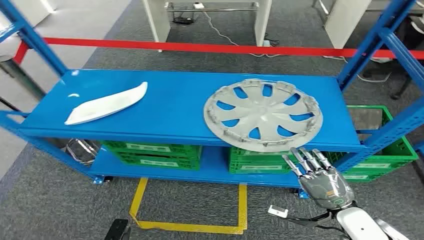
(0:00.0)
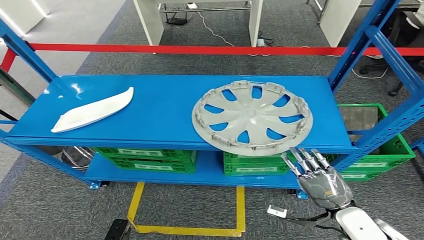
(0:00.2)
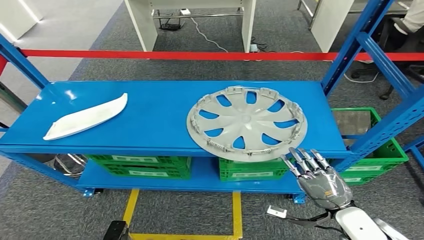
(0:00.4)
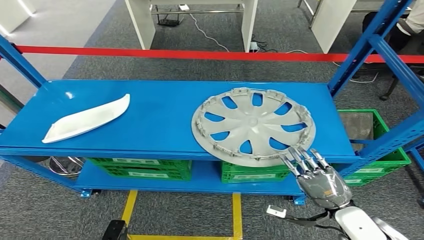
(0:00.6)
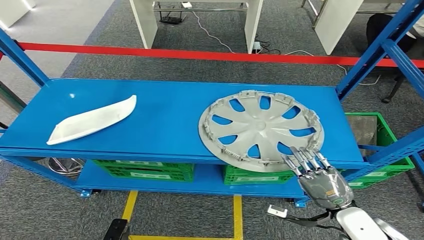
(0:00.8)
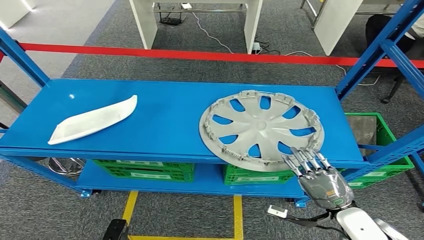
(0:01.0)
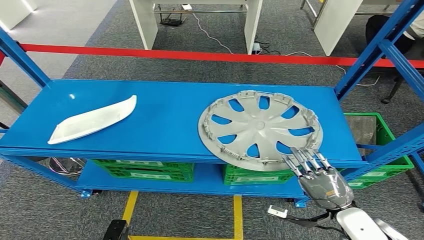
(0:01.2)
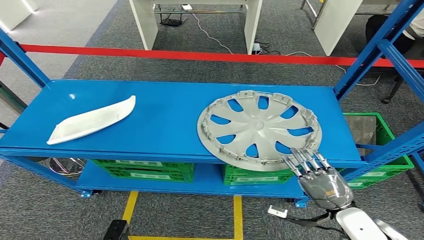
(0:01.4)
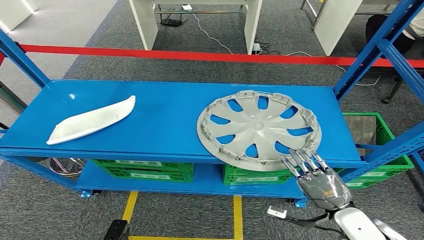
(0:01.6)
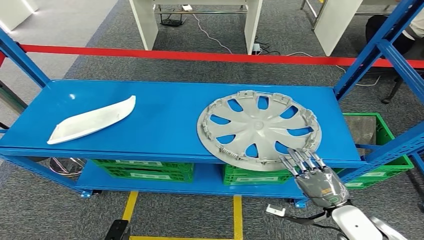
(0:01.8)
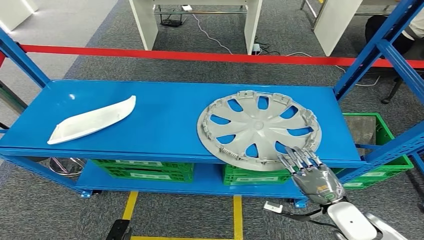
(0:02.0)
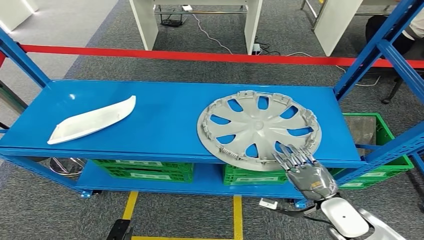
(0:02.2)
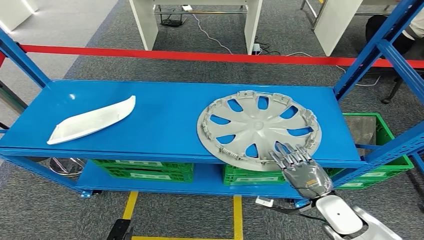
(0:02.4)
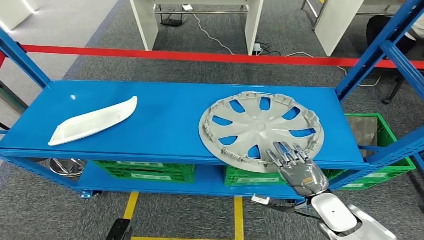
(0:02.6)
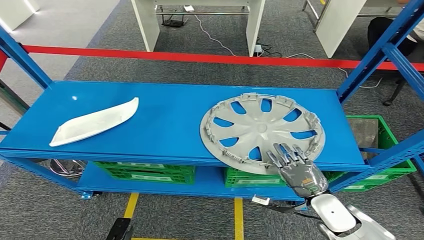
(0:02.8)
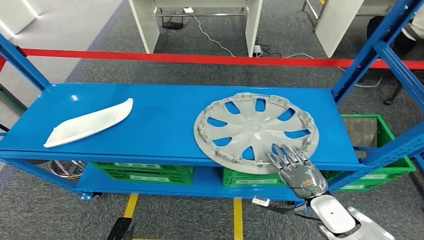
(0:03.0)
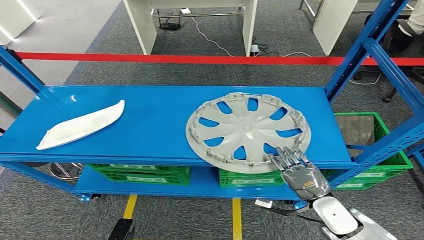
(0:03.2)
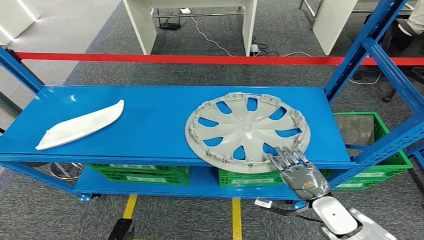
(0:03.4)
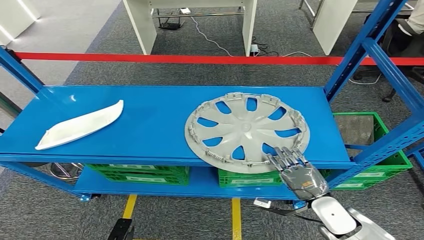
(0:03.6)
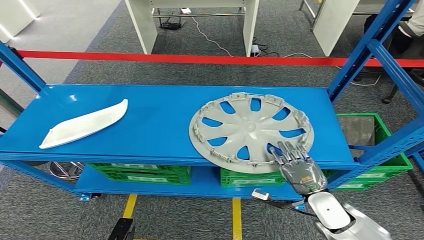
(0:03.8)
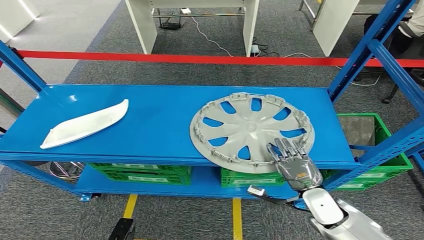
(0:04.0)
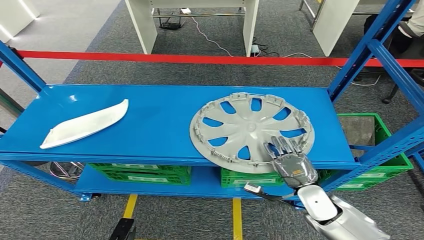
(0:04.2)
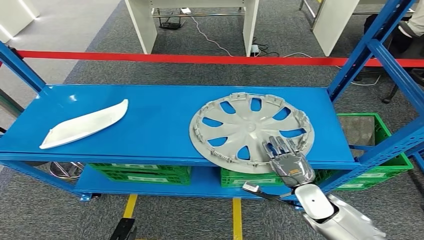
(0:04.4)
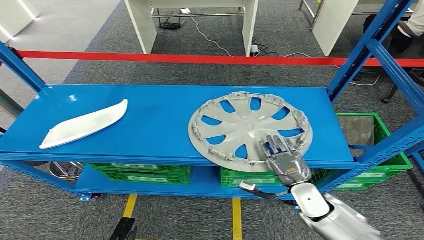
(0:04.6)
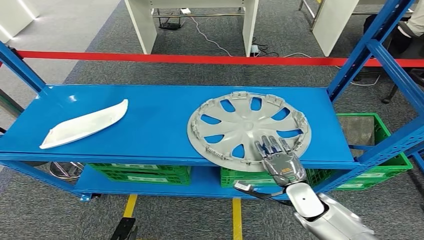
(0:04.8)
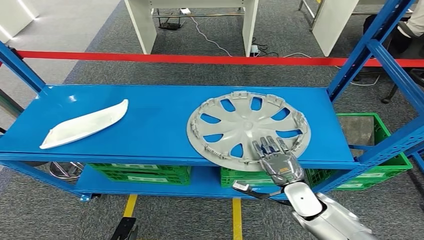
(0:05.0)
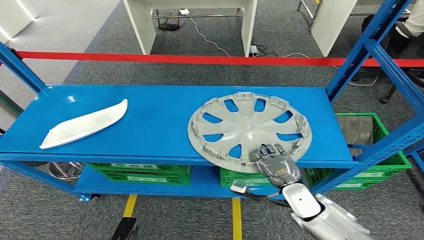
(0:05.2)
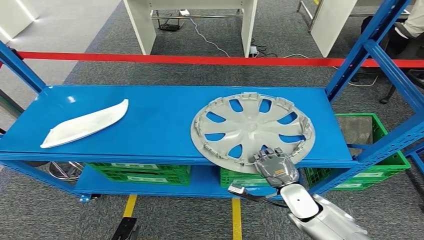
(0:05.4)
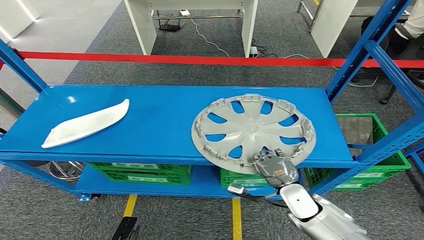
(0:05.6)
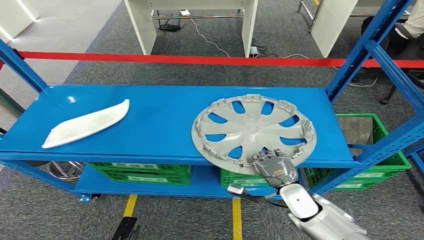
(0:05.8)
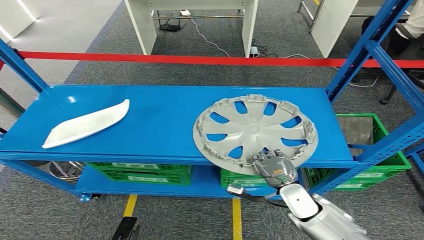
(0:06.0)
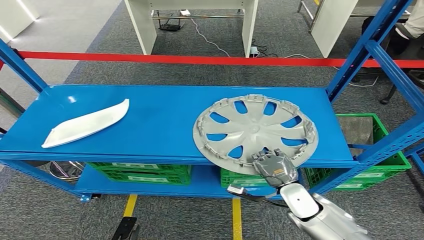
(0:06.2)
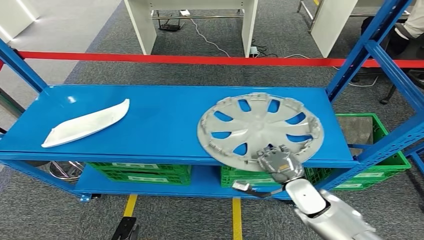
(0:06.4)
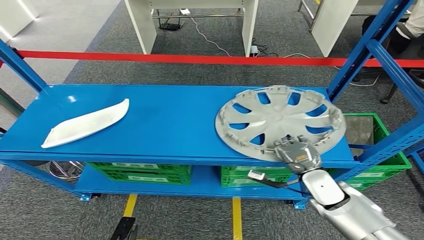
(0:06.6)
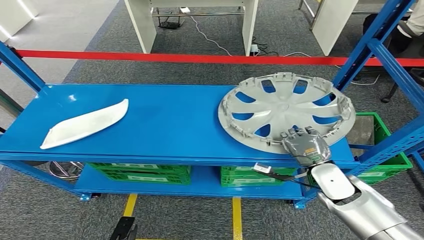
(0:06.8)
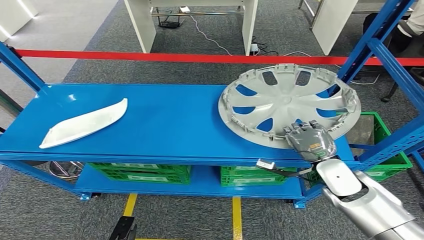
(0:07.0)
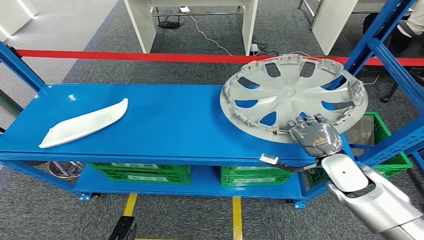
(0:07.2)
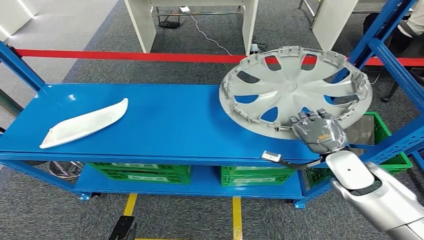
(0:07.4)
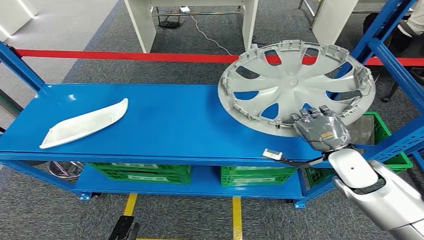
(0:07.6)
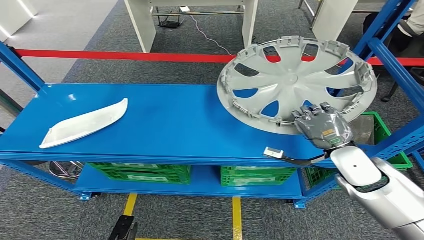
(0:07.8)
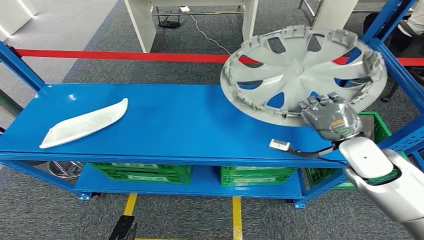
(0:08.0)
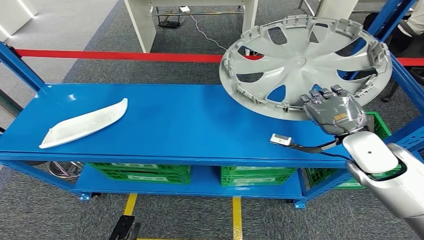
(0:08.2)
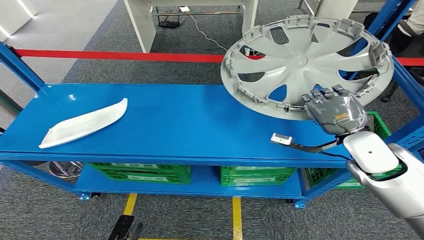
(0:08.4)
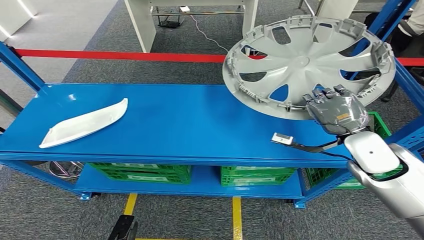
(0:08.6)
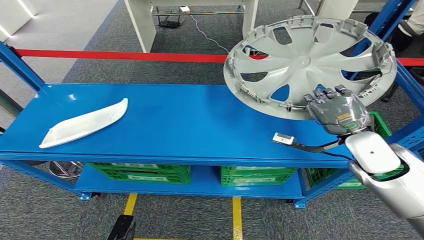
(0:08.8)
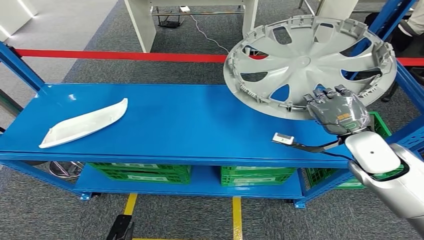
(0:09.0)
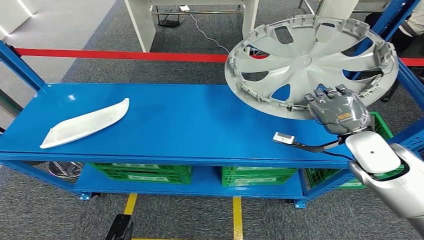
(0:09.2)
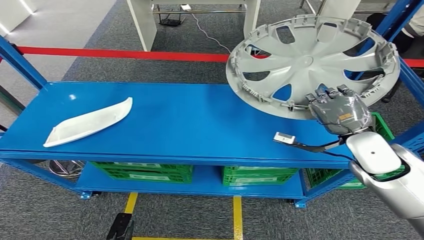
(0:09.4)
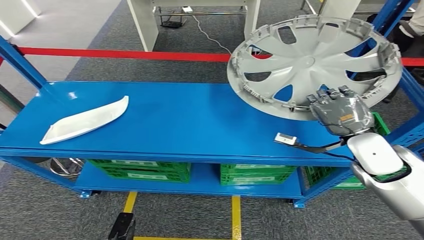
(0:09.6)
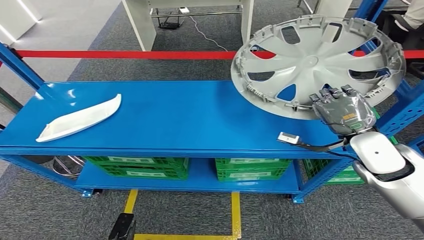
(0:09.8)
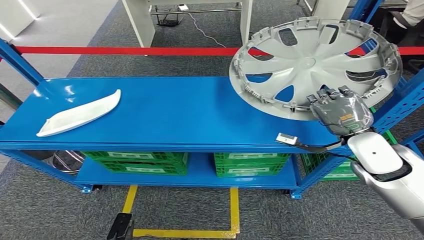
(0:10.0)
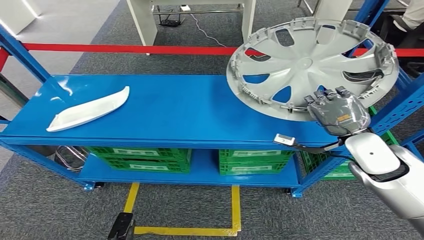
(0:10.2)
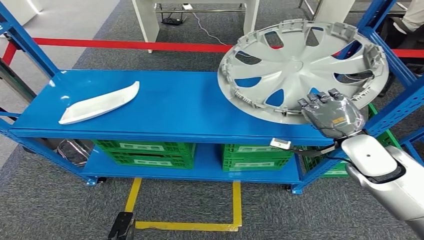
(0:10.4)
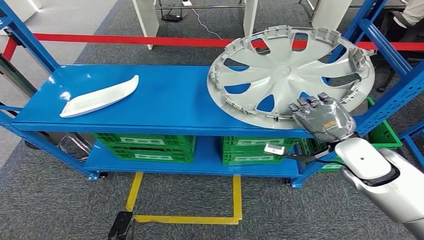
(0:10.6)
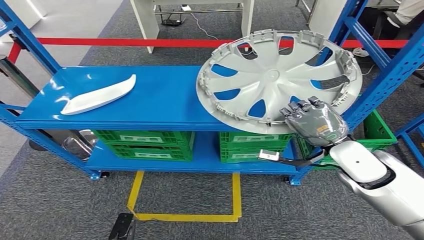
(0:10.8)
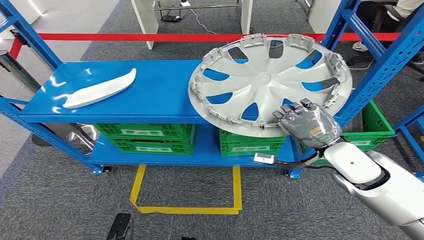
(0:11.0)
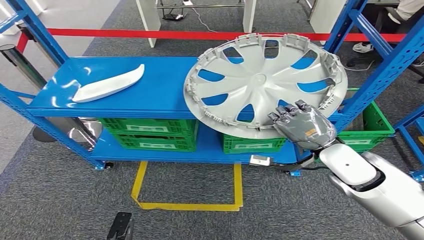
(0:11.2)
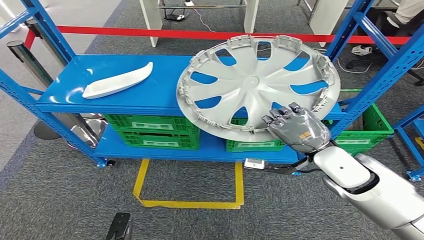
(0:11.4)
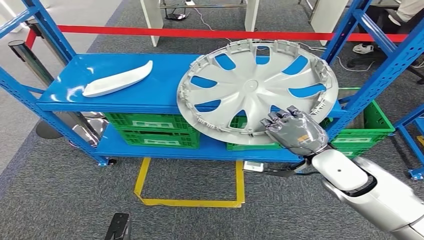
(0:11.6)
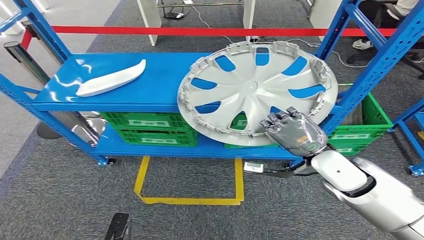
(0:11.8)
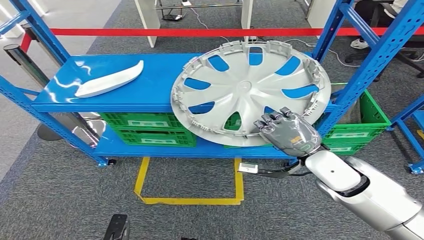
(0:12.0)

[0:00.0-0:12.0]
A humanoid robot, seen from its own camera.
Step, 0:00.0 to 0:11.8: Pick up the small component from the shelf.
0:01.6 to 0:03.0: The right hand changes place by approximately 5 cm.
0:03.0 to 0:04.4: The hands stay close to where they were, moving slightly.
0:04.4 to 0:06.0: The hands stay close to where they were, moving slightly.
0:07.6 to 0:09.0: The right hand moves upward, roughly 5 cm.

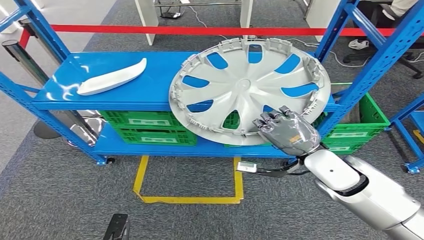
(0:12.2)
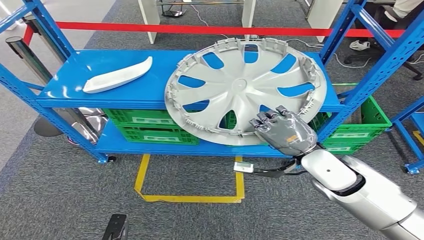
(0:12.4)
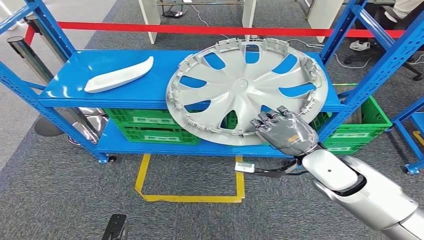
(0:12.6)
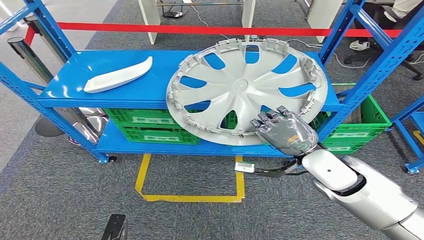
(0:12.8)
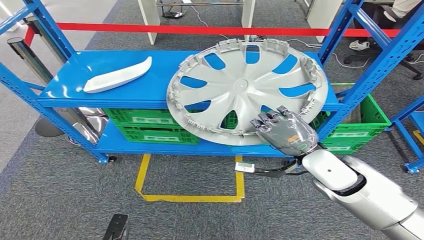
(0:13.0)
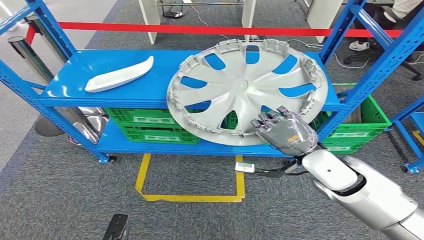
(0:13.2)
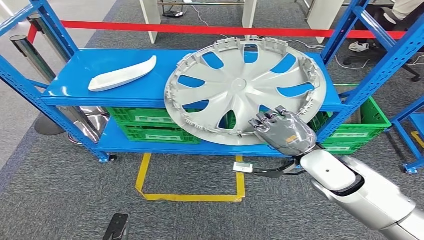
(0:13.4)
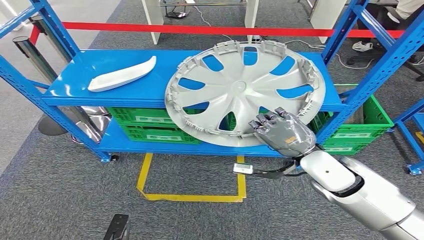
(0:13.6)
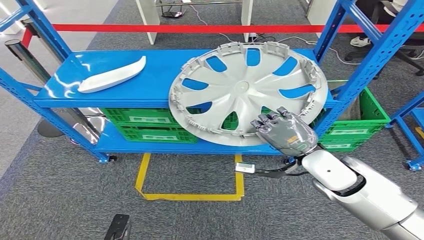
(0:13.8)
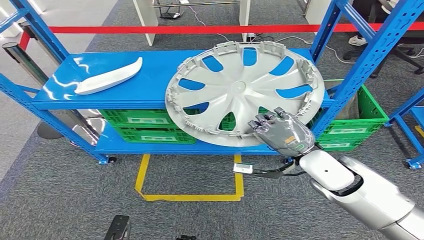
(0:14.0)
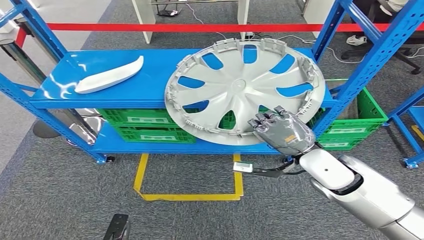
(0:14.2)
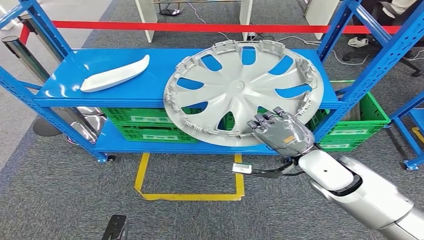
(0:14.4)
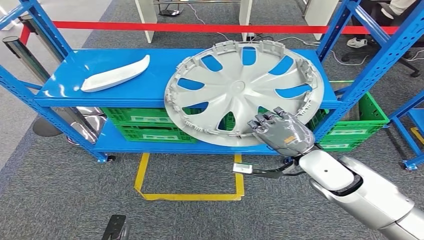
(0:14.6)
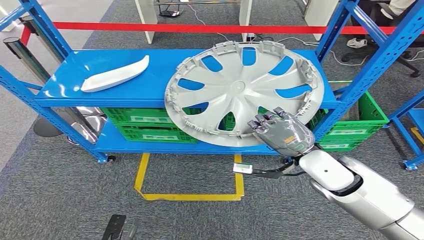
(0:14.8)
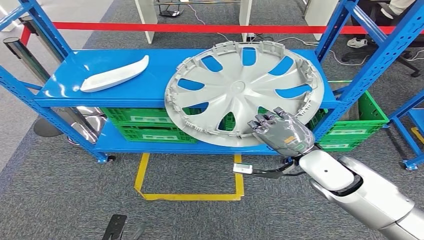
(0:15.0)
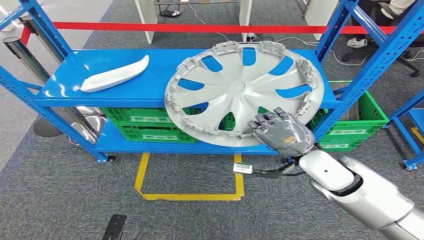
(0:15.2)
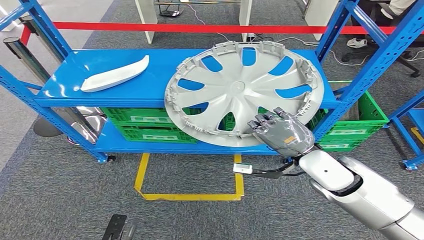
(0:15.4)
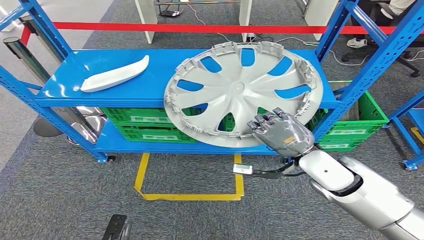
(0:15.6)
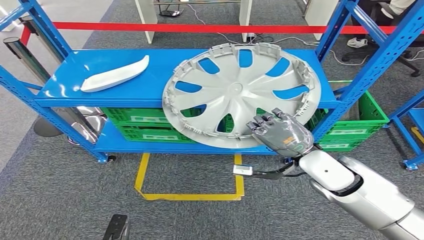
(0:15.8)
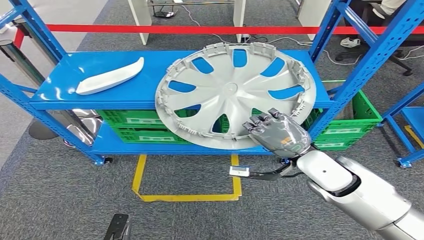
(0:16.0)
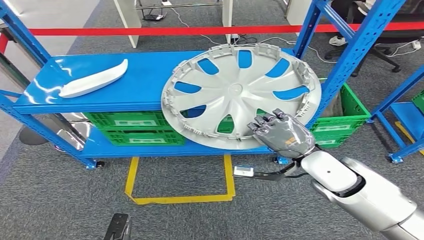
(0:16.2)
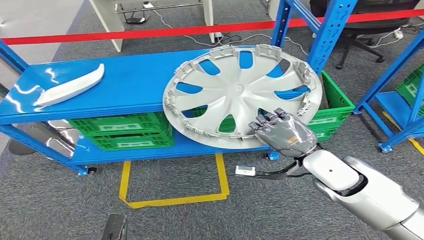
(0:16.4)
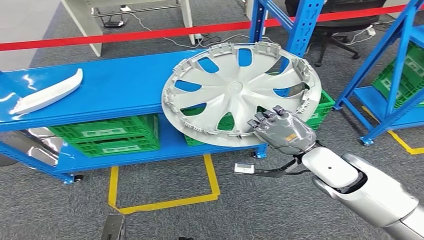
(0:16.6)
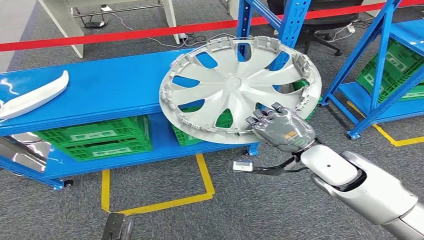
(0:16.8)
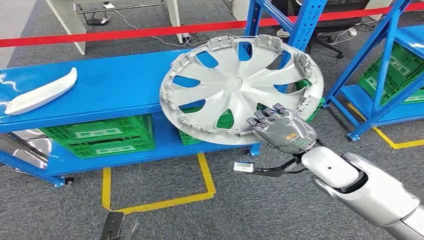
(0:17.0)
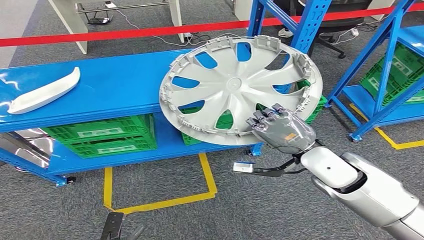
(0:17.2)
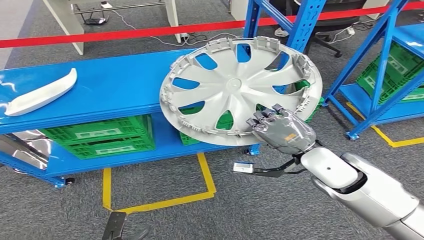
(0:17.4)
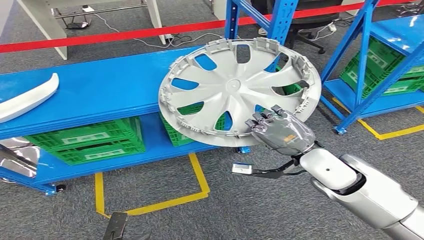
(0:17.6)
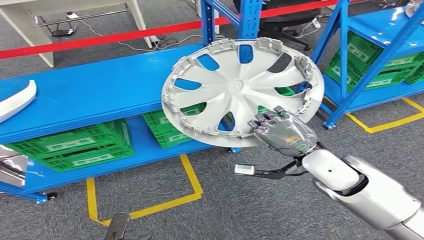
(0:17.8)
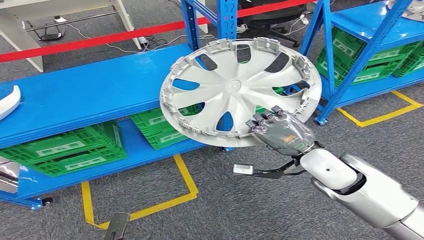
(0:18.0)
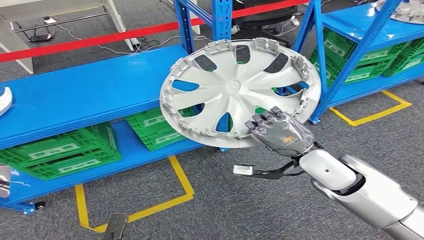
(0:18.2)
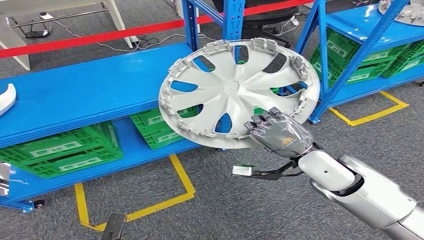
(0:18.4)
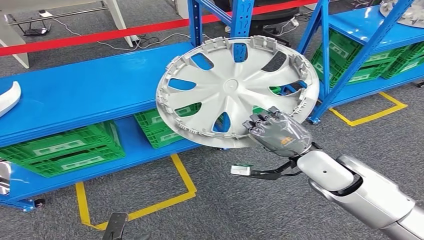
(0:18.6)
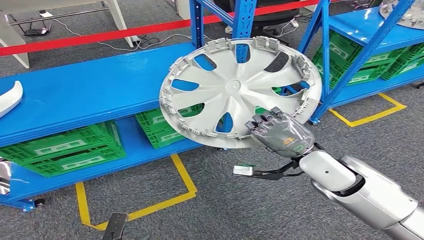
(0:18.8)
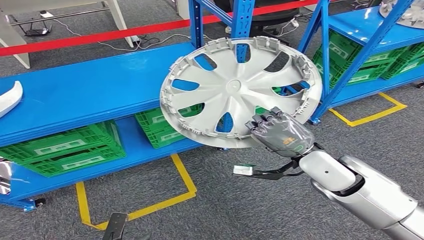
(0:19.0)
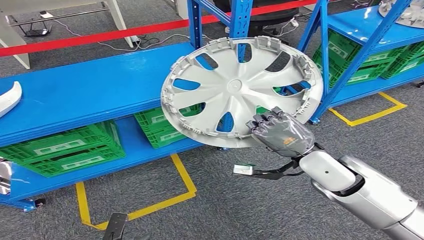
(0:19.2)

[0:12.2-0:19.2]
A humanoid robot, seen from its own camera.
0:13.6 to 0:15.0: The two hands keep their place.
